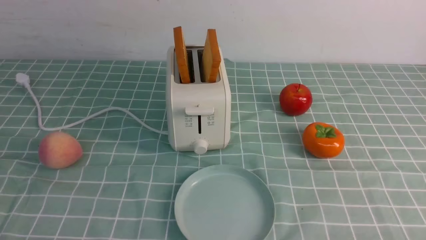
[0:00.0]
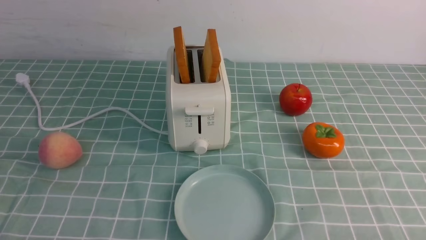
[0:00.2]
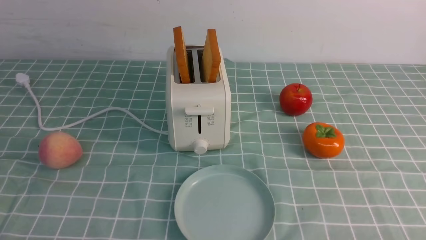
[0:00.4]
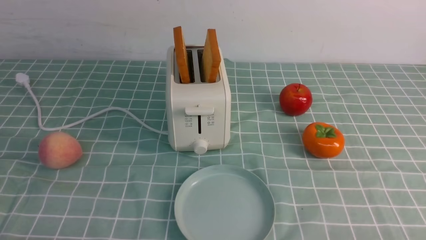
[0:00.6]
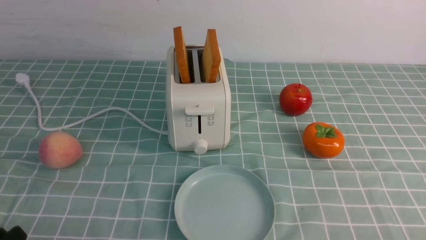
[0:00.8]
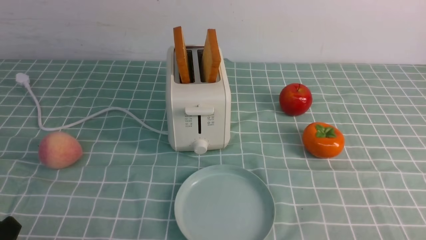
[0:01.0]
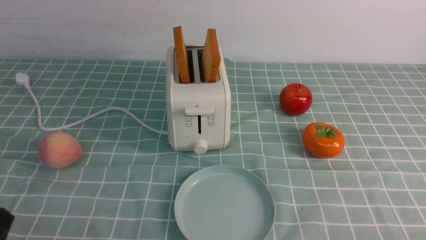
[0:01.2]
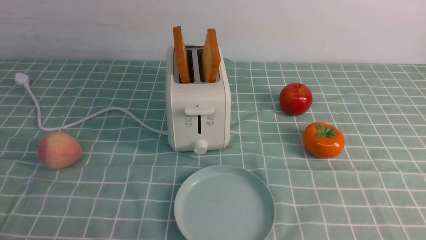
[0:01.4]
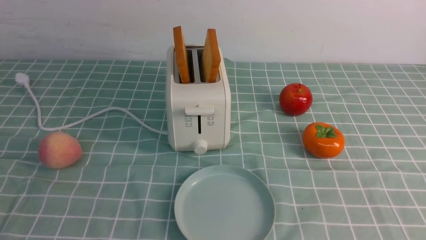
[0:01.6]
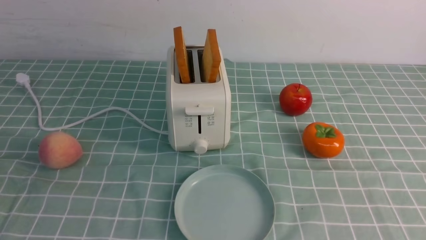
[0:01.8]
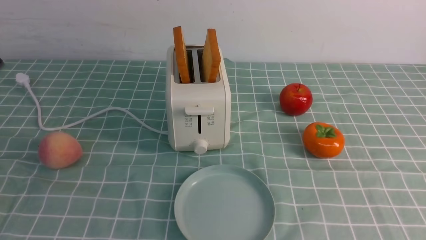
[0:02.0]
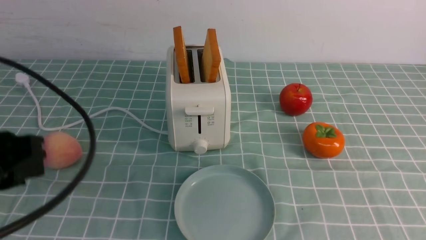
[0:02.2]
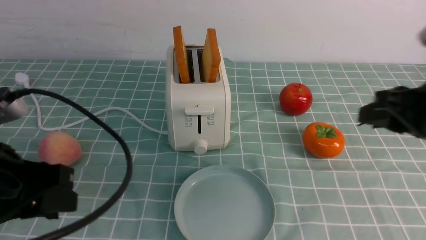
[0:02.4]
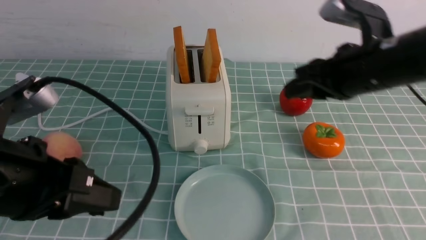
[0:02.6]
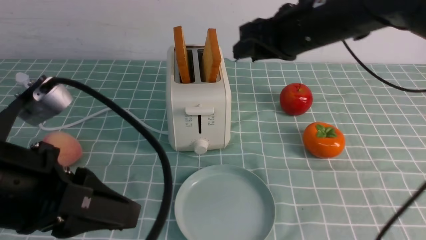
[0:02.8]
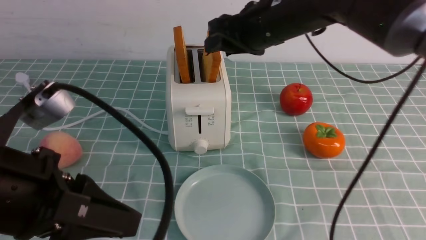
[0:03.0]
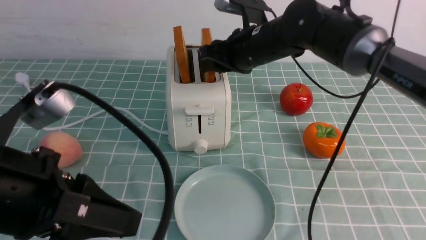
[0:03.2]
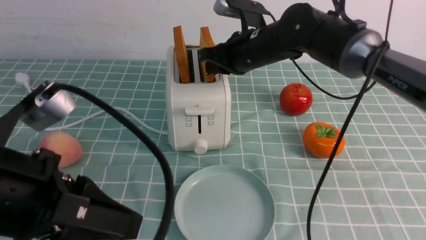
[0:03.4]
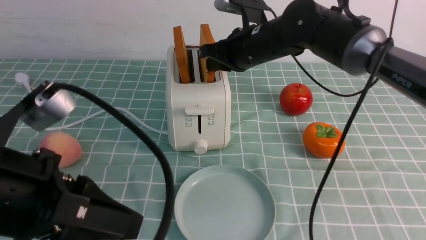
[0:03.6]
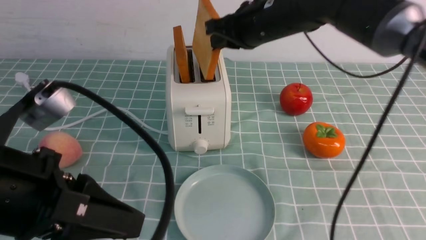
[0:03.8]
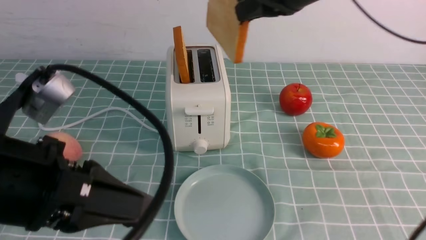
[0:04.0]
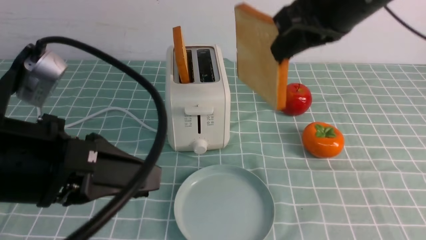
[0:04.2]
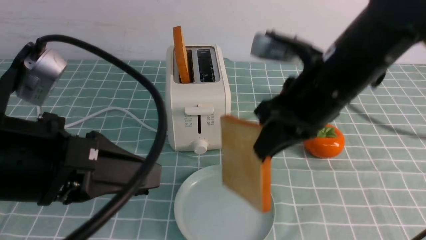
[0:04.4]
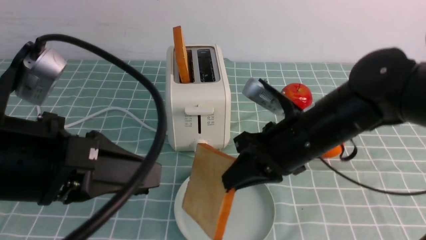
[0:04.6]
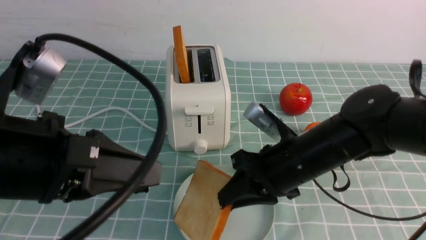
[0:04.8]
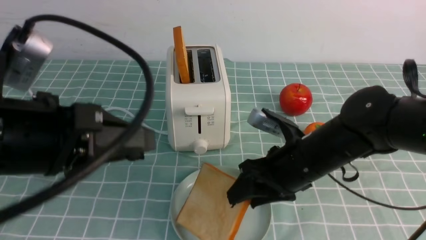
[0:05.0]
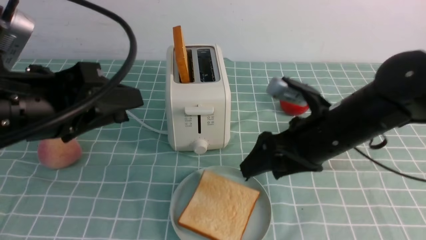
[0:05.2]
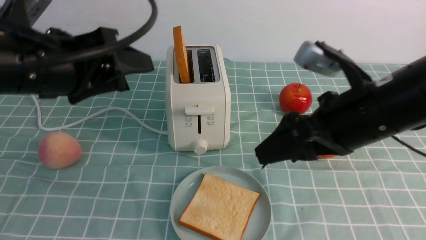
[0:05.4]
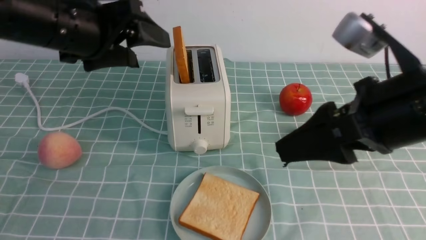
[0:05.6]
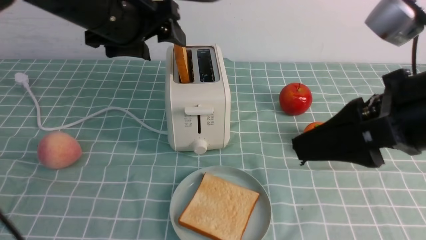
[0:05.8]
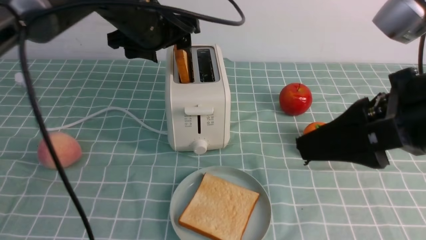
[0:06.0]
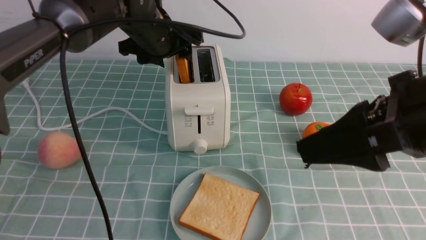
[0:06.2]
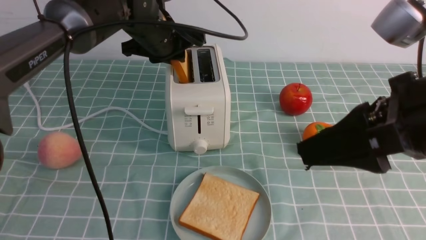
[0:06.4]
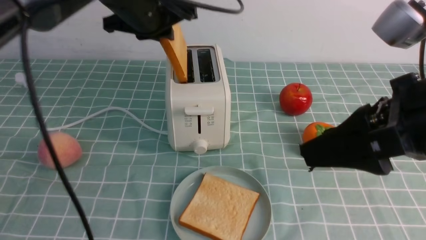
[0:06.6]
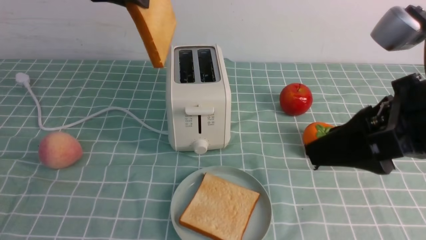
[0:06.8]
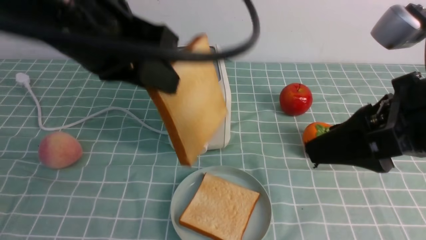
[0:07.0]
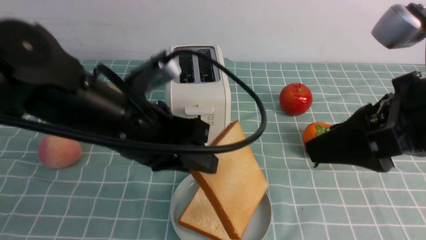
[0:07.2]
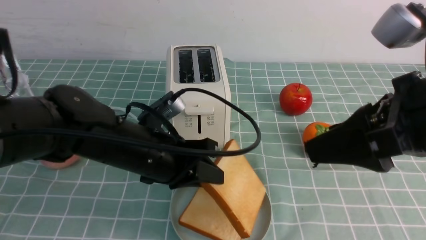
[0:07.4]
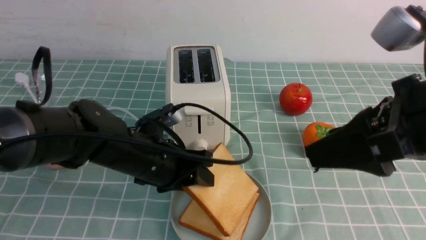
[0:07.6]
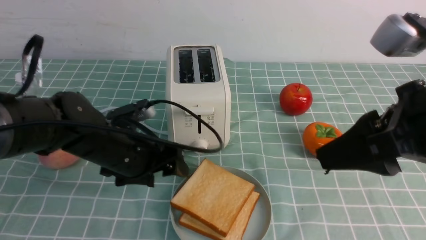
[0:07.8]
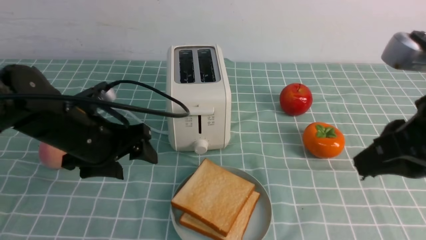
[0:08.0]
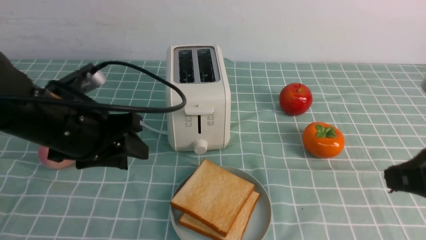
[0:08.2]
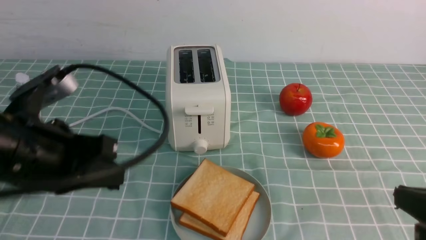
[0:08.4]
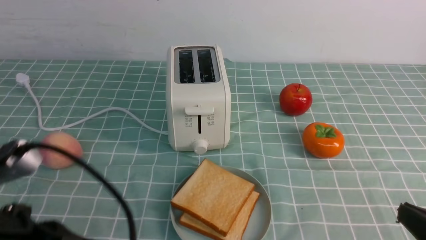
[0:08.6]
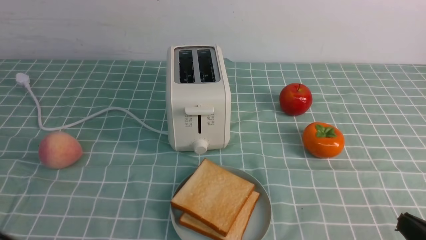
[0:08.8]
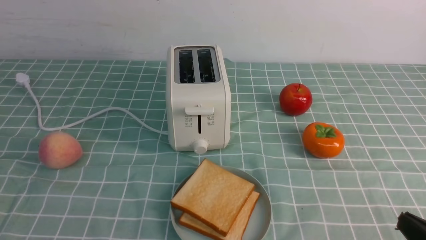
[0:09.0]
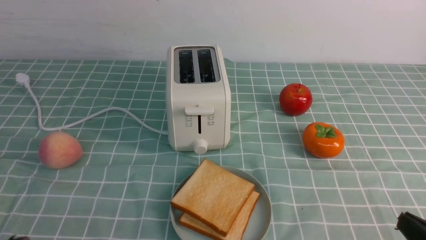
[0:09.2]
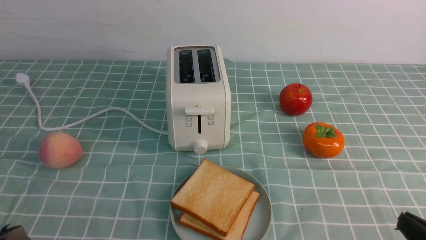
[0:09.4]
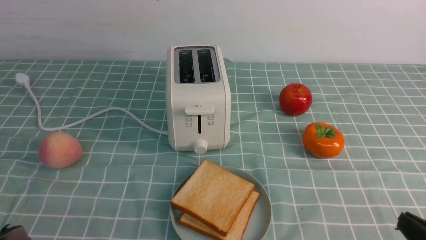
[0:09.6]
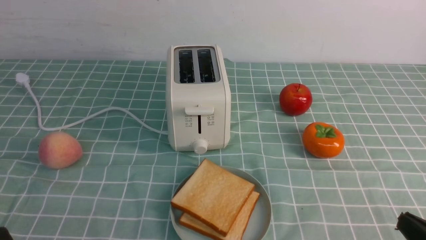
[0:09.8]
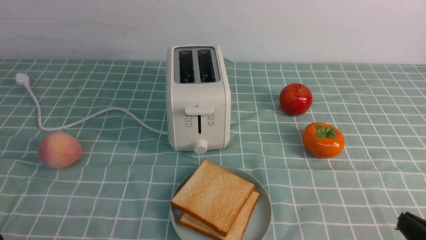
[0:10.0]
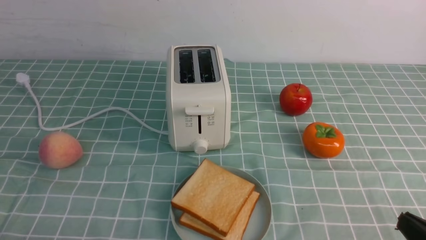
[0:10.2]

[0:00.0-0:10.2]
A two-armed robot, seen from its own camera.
Task of the whole recording: take toasted bread from bread machine on blue coffee table place on plate.
Step, 0:00.0 to 0:03.8: use the right arm to take out a slice of bread.
Step, 0:04.0 to 0:05.2: use the right arm to put a slice of bread into the plate.
Step, 0:05.4 to 0:06.6: use the left arm to take out a slice of bread.
Step, 0:06.8 to 0:07.6: use the left arm to put a slice of bread into the empty plate.
0:01.4 to 0:03.0: The right gripper heads forward and to the left, covering roughly 40 cm. The left gripper shifts about 15 cm forward, upward and to the right.
0:03.0 to 0:04.4: The right gripper moves backward, some 10 cm, and closes its fingers.
0:04.4 to 0:05.8: The left gripper moves forward, roughly 20 cm, and opens its fingers. The right gripper moves backward, to the right and upward, roughly 15 cm, and opens its fingers.
0:05.8 to 0:07.2: The left gripper travels backward and downward by approximately 15 cm, and closes.
0:07.2 to 0:08.8: The left gripper moves backward and to the left, about 25 cm, and opens, then closes again. The right gripper is displaced downward, backward and to the right by some 20 cm, and closes its fingers.

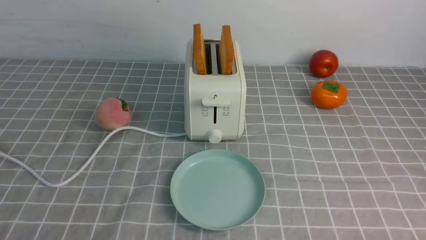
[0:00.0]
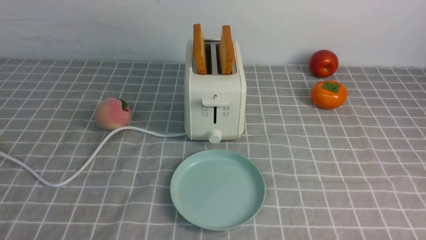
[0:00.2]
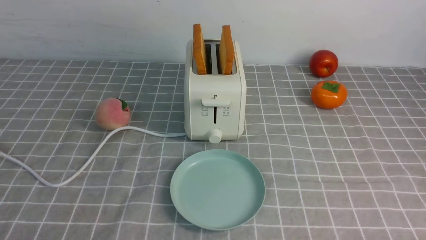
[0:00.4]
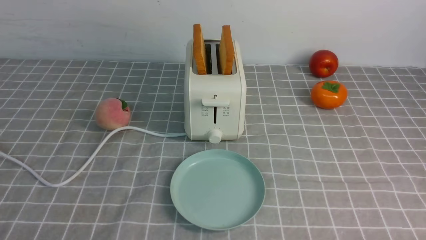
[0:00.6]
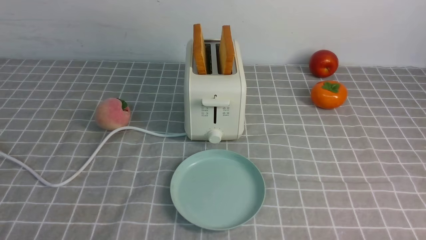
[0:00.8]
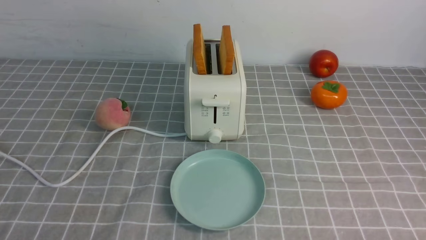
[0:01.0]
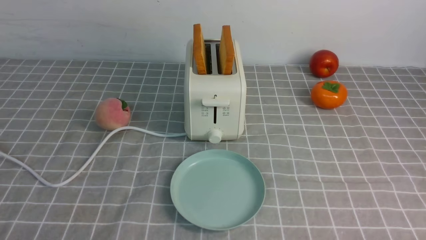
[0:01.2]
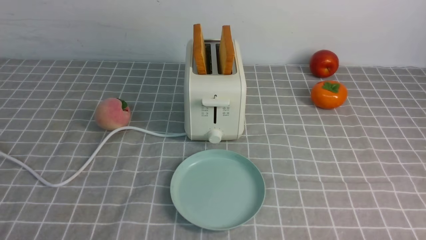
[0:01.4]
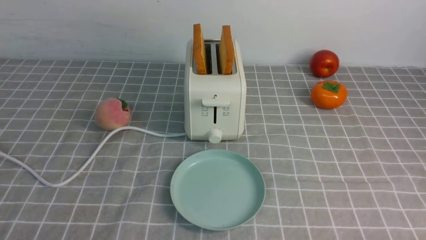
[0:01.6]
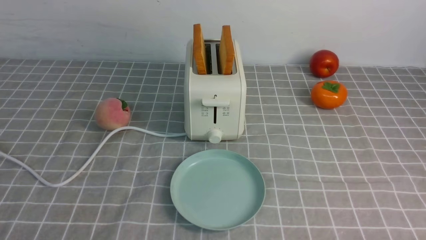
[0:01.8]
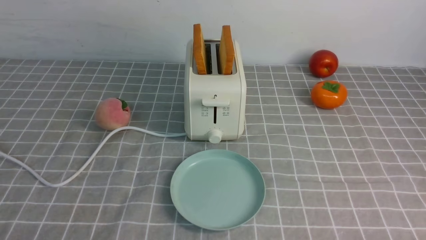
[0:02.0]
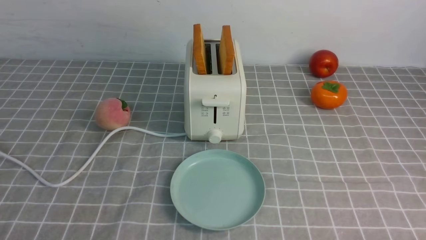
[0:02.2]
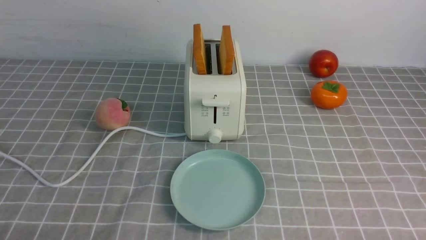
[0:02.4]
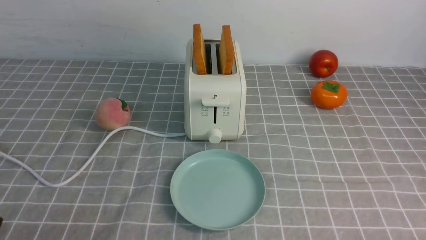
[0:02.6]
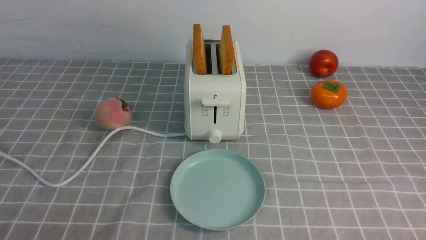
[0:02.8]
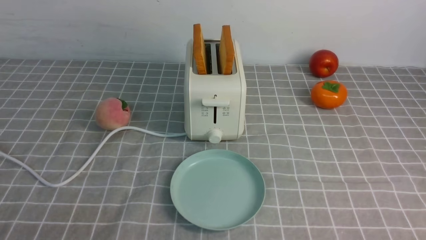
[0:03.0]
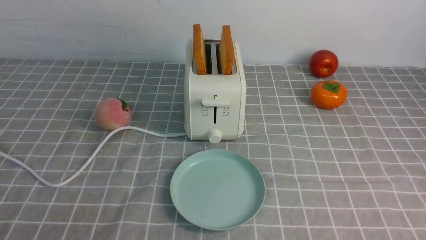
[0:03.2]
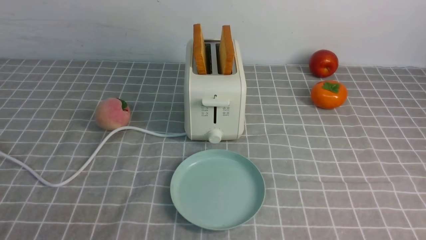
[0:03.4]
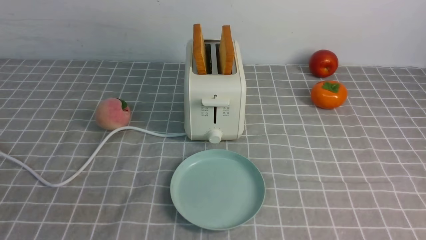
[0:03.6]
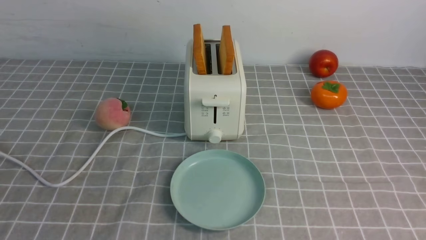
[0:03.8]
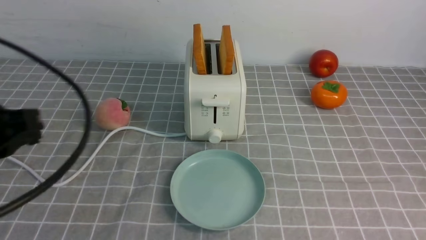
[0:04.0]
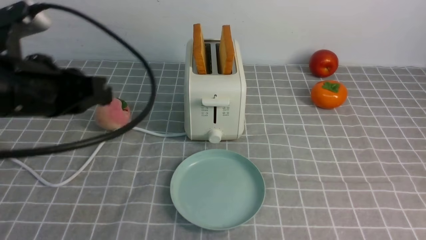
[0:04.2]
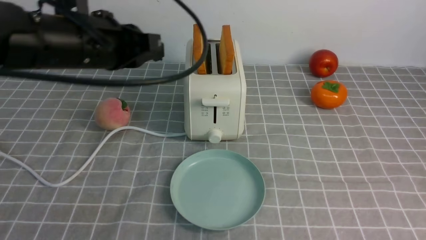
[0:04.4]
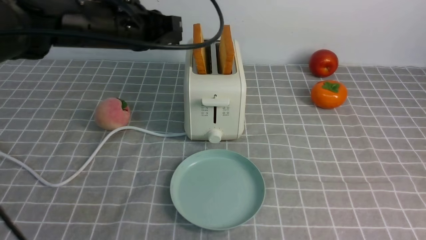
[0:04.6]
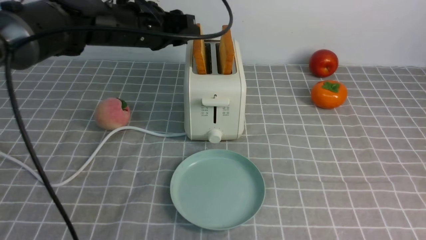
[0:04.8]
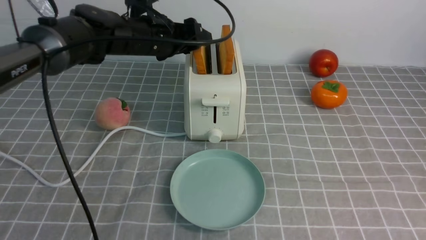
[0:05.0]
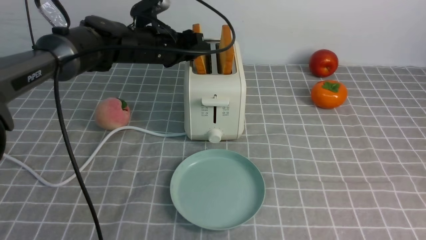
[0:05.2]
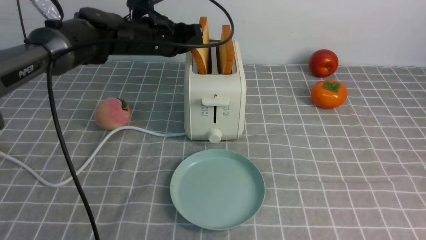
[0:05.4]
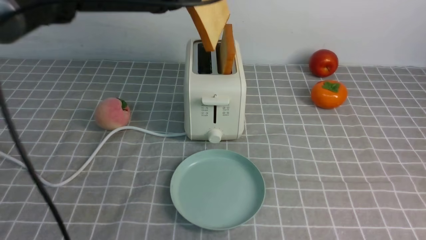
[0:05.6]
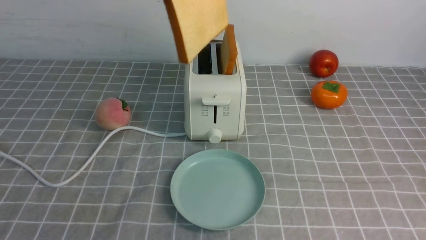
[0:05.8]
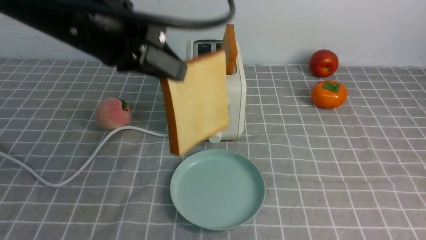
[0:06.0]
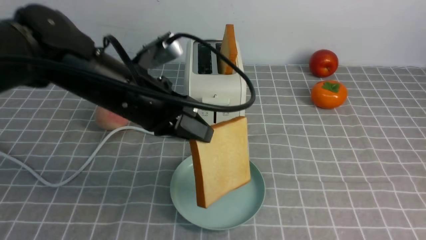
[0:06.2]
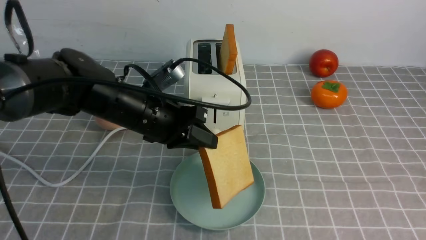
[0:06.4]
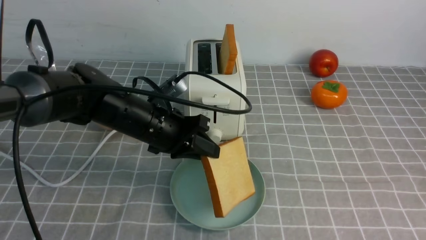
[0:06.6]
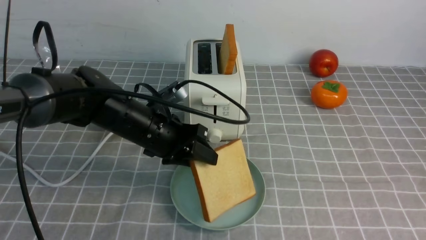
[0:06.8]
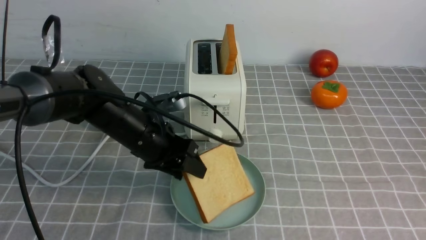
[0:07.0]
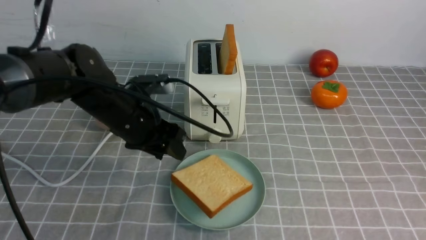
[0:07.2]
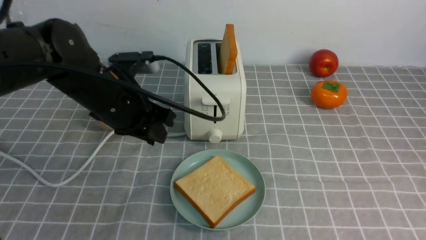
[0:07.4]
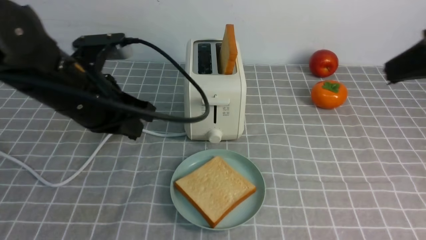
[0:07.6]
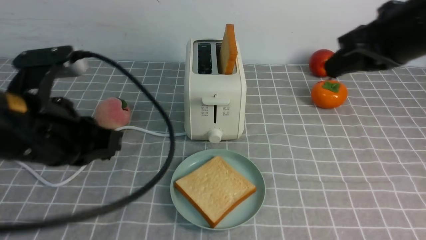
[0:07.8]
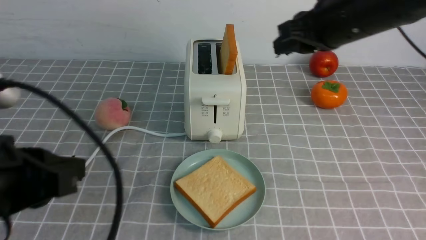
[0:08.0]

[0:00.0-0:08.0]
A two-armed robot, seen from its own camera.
Task of the whole recording: take toasted bread from bread machine on grey coffee table place on plate.
Step, 0:00.0 to 0:05.4: use the left arm to take out a slice of bread.
Step, 0:05.6 to 0:07.2: use the left arm to put a slice of bread into the empty plate.
0:00.0 to 0:01.6: The two grippers keep their place.
0:03.2 to 0:04.8: The right gripper moves upward, approximately 15 cm, and closes its fingers; the left gripper goes some 40 cm forward, and opens up.
0:04.8 to 0:06.4: The left gripper shifts roughly 10 cm backward and downward, and closes its fingers.
0:06.4 to 0:08.0: The right gripper moves forward and to the left, some 30 cm, and opens; the left gripper heads backward and to the left, covering roughly 20 cm, and opens and closes again.
